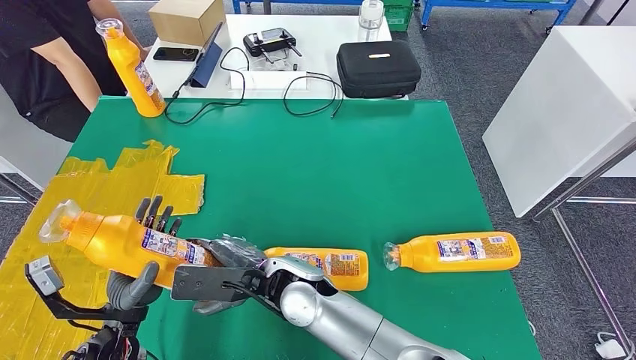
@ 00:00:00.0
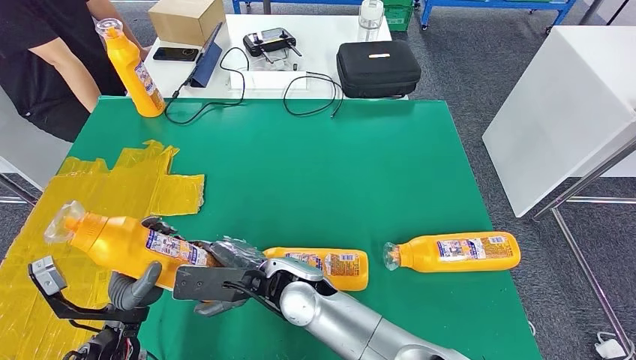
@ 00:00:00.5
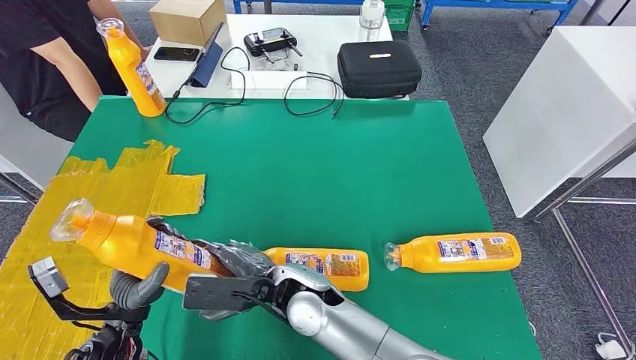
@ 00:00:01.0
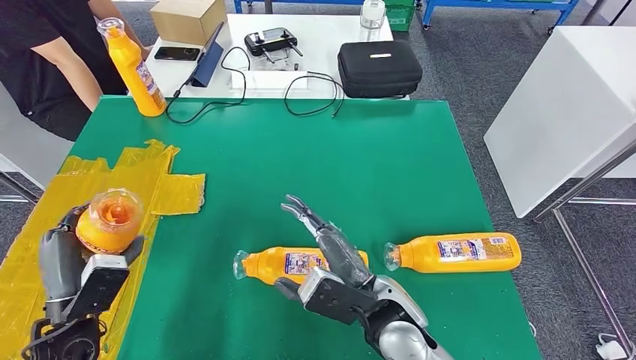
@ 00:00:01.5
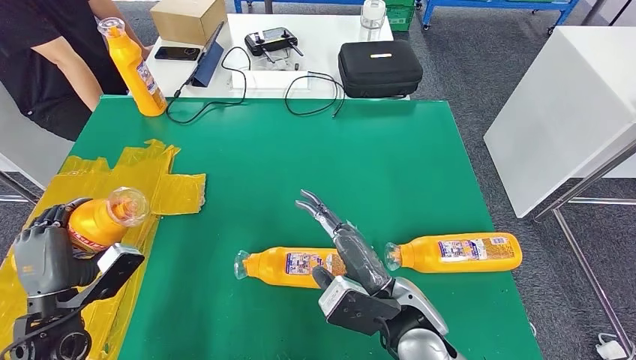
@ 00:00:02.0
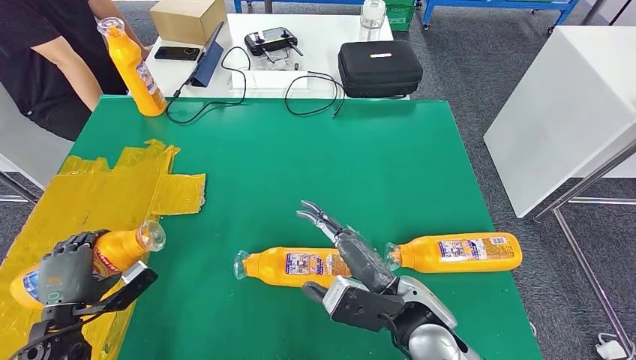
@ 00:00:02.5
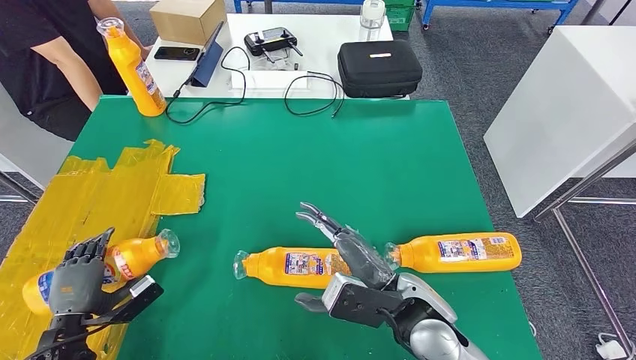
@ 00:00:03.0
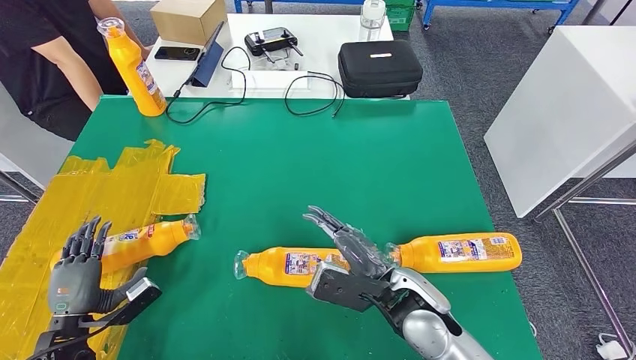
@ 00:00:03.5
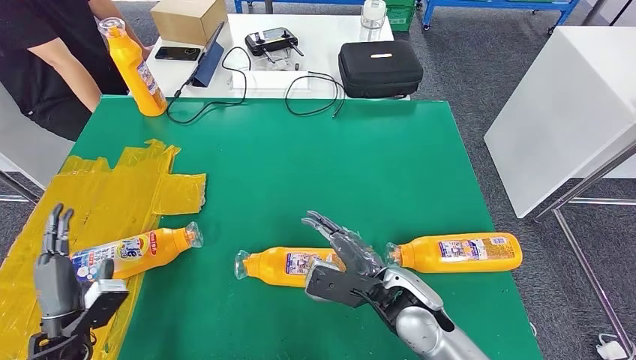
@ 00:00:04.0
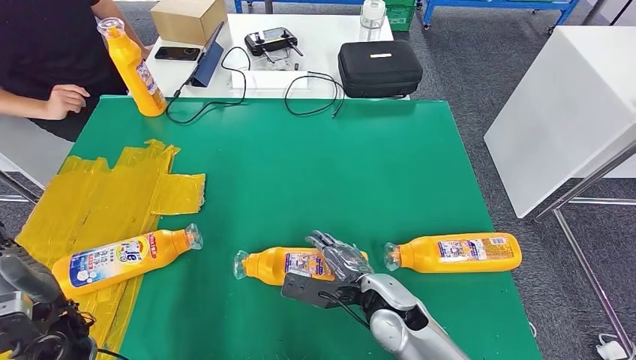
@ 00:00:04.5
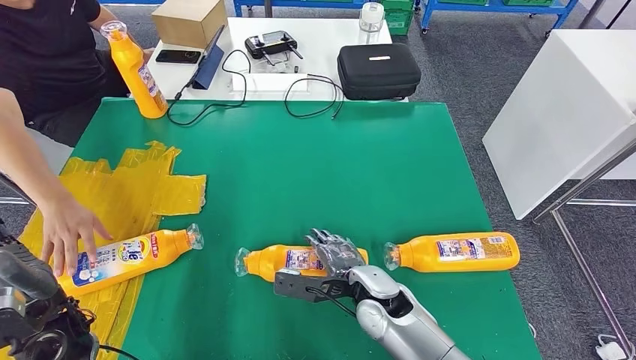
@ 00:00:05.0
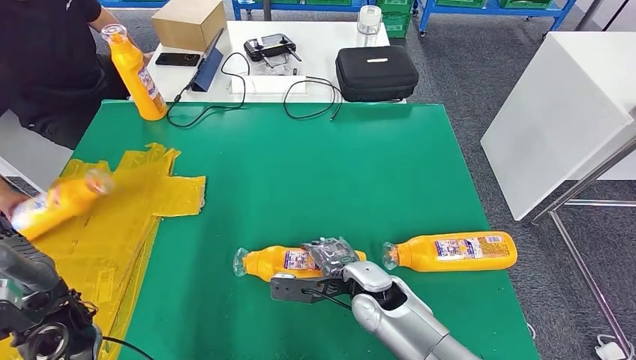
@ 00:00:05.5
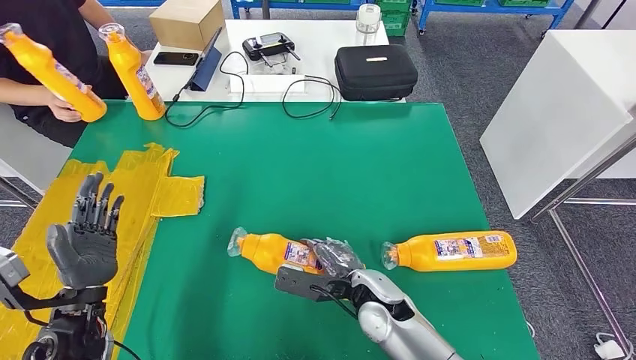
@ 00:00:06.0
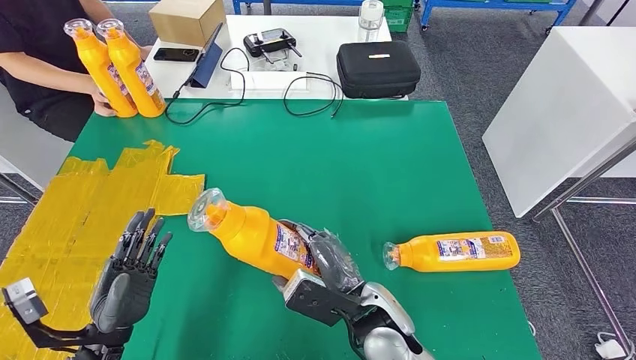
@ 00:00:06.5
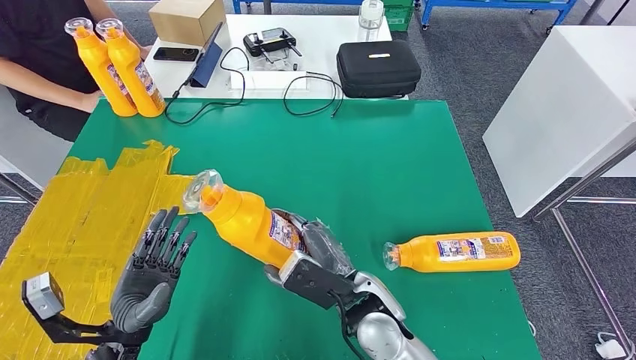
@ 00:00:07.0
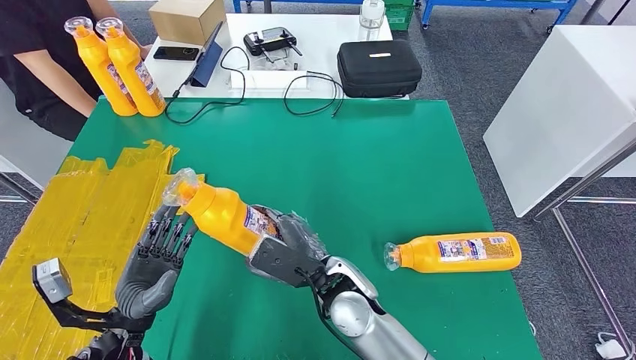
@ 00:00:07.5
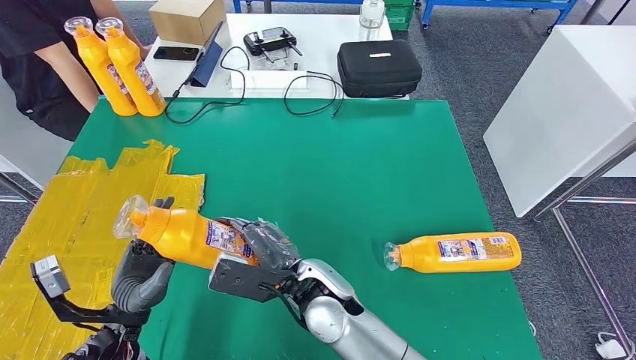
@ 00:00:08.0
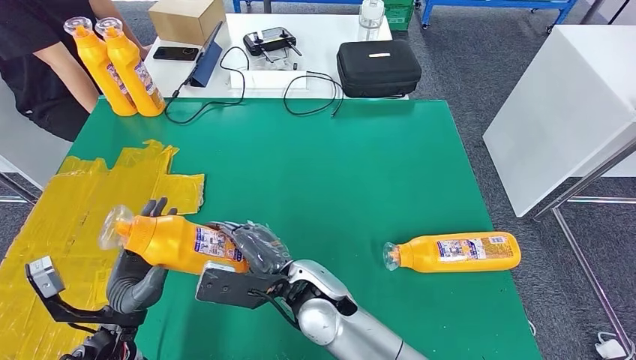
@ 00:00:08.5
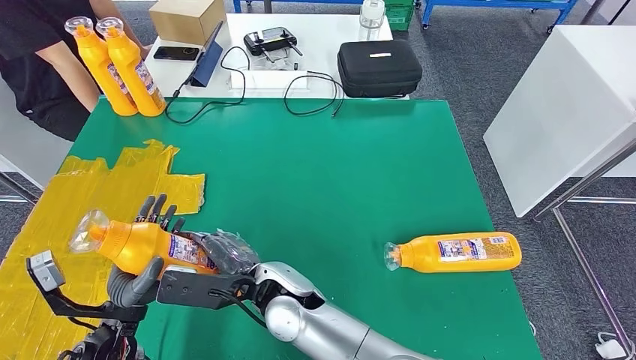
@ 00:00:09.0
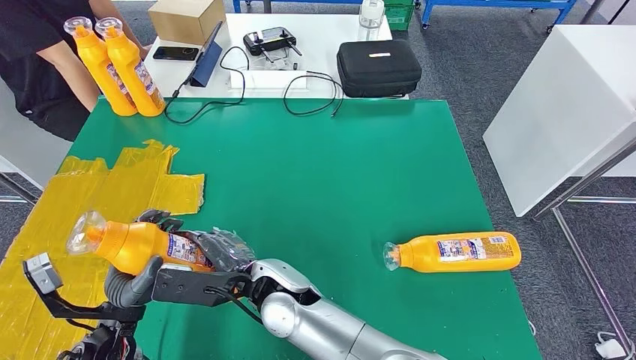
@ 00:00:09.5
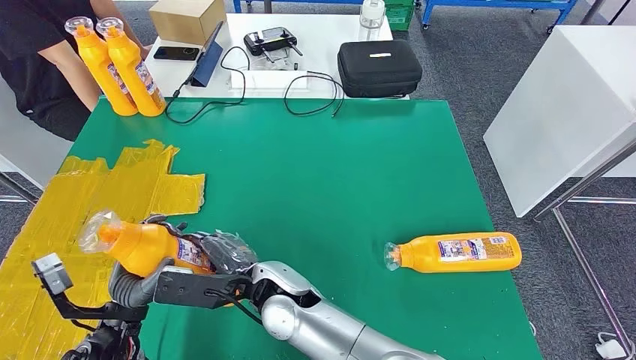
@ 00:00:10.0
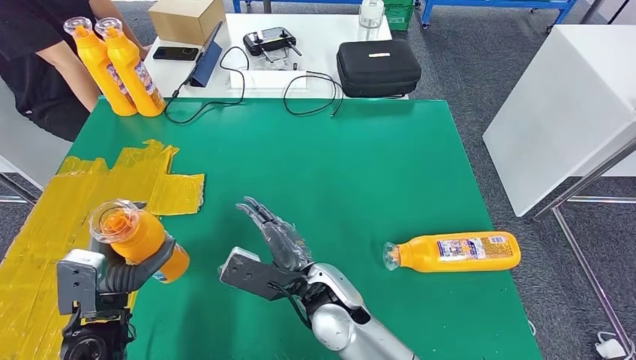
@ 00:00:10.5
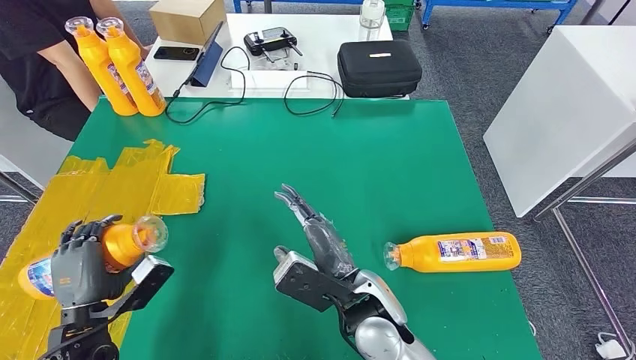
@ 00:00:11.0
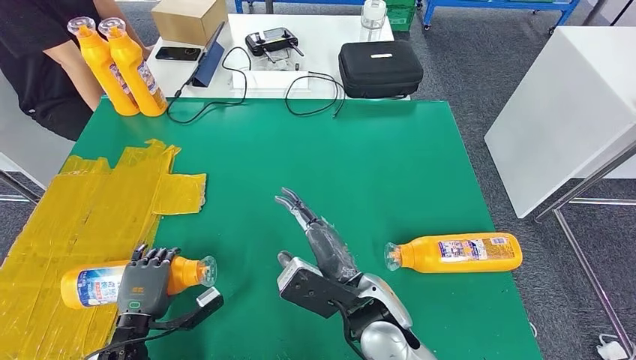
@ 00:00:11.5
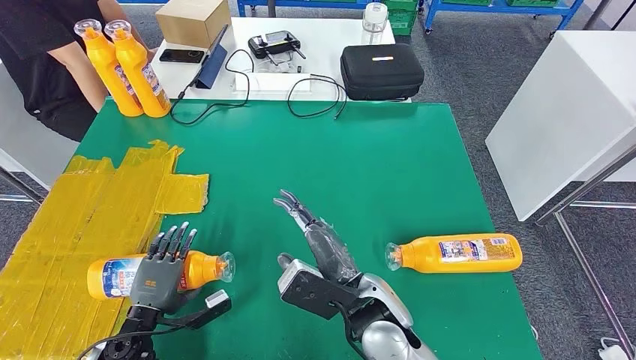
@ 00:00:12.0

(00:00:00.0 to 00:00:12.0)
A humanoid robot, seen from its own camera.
Step, 00:00:00.0 - 00:00:02.5: Flip the fast-moving consumer goods bottle to the front side.
Step, 00:00:03.0 - 00:00:08.0: Pick up the fast-moving consumer goods bottle from the table.
00:00:02.0 - 00:00:04.0: The right hand ends up some 5 cm from where it was. The left hand heads downward, covering some 5 cm.
00:00:08.0 - 00:00:10.0: The right hand heads to the left, covering roughly 5 cm.

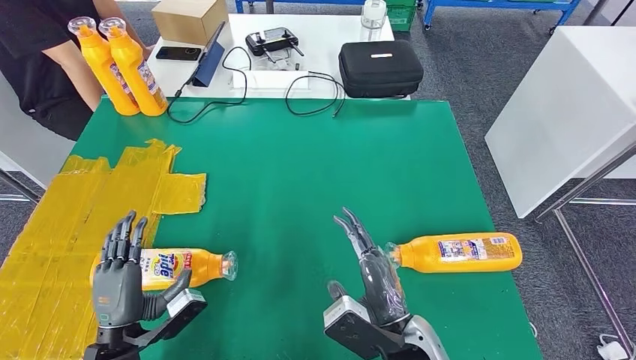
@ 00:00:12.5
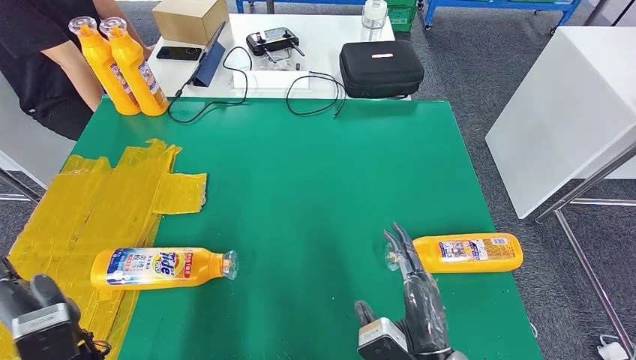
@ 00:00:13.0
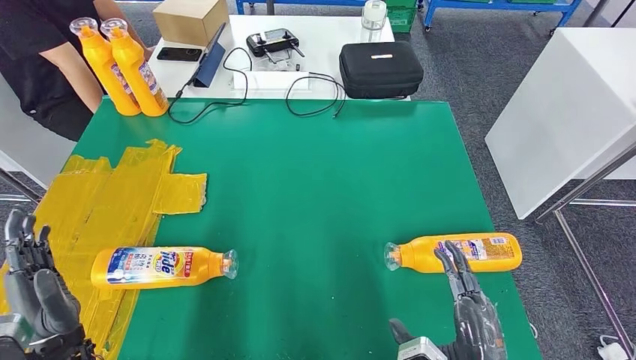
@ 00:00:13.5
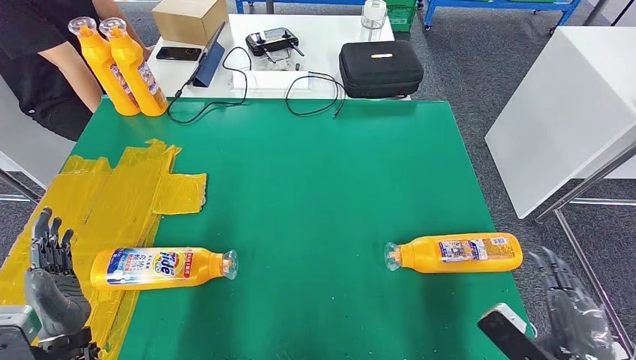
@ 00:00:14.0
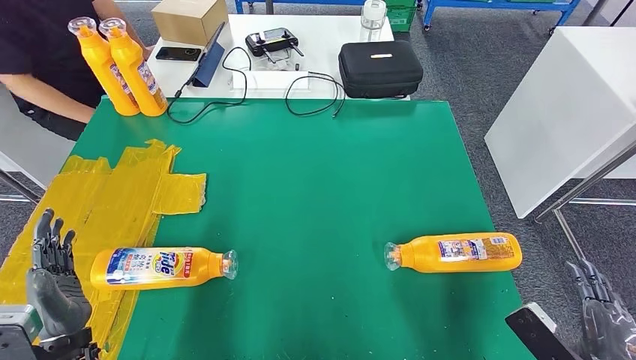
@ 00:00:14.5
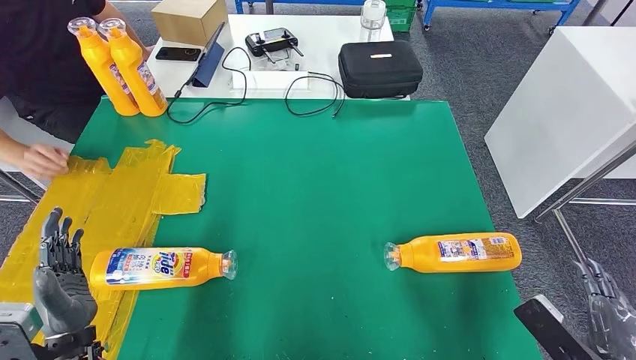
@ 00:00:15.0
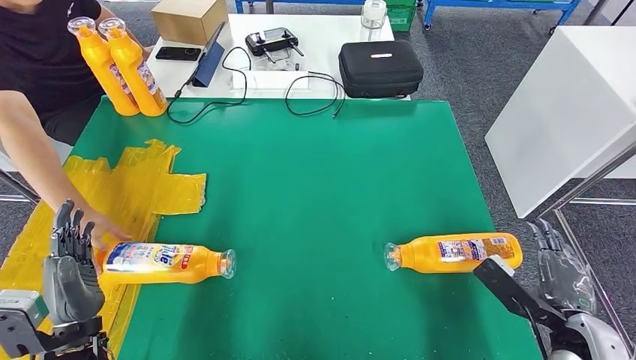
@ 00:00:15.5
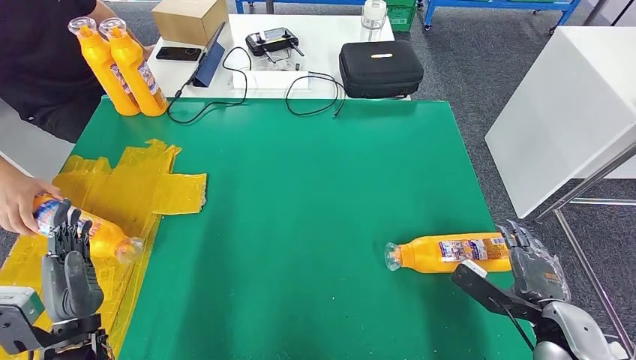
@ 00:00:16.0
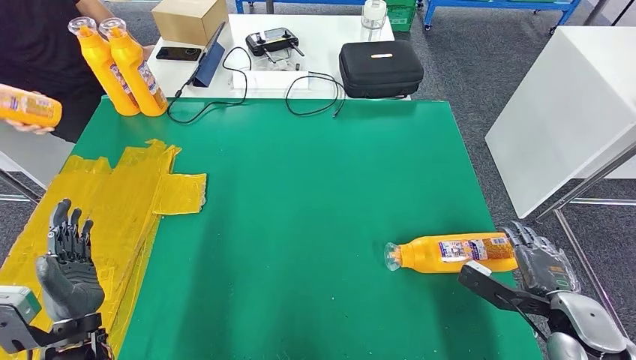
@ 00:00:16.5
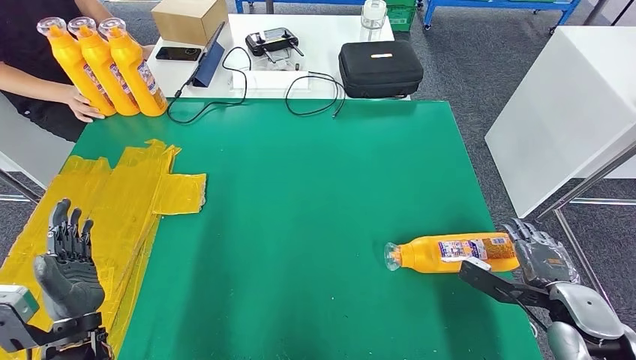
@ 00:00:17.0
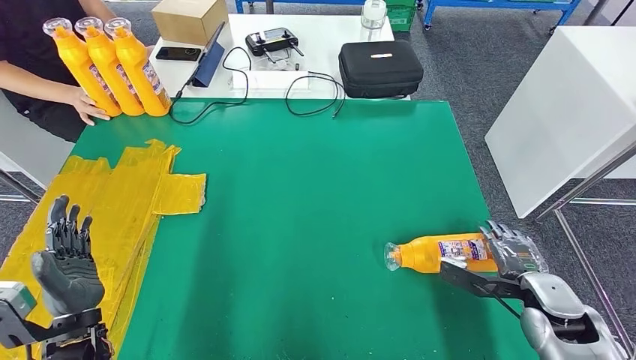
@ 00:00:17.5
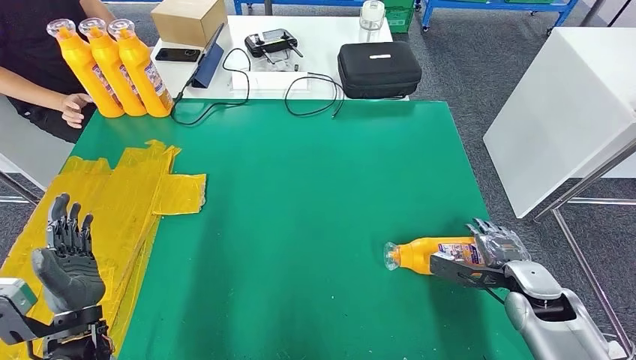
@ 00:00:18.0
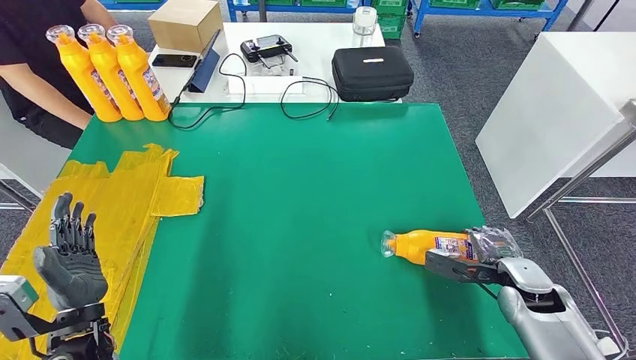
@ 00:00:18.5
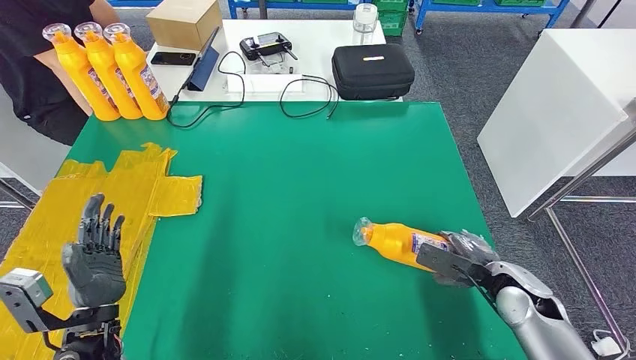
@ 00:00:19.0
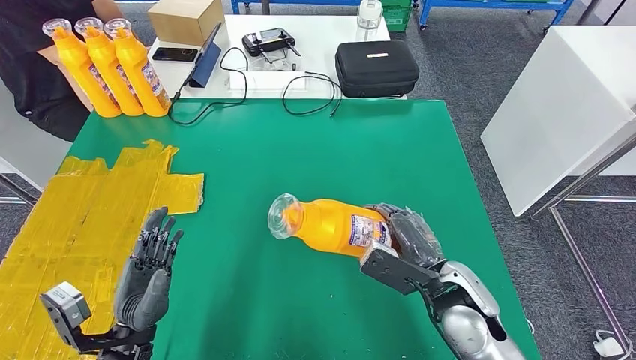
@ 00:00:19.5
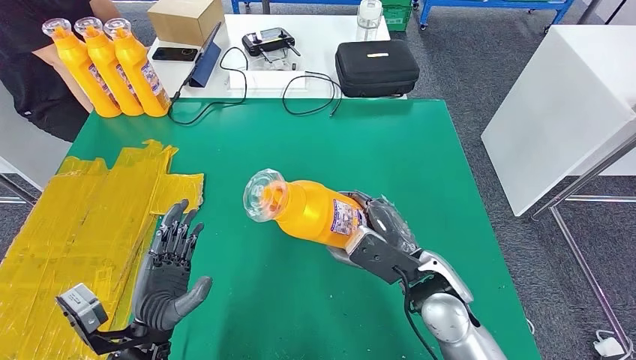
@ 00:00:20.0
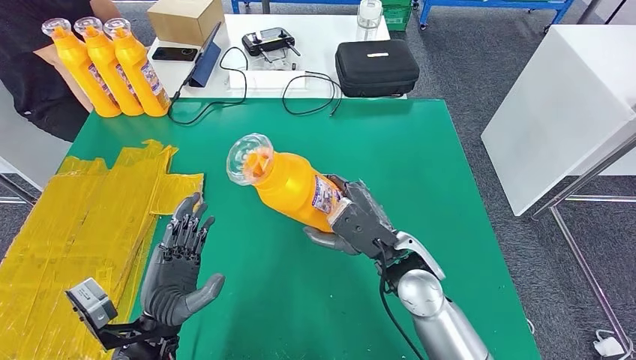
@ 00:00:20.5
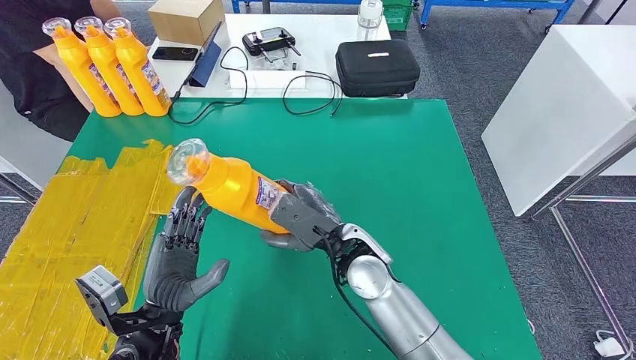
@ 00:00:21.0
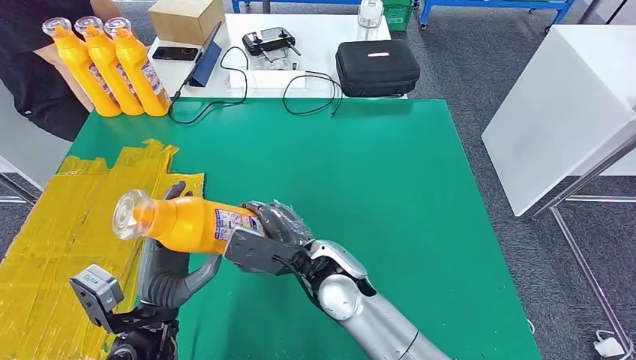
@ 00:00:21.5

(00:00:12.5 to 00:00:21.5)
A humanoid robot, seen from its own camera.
Step, 00:00:12.5 - 00:00:20.5: Pick up the fast-moving consumer goods bottle from the table.
00:00:12.5 - 00:00:14.5: The left hand is displaced upward by roughly 5 cm. Meanwhile the right hand goes approximately 25 cm to the right.
00:00:14.5 - 00:00:17.0: The right hand is displaced forward by approximately 15 cm.
00:00:19.5 - 00:00:21.5: The right hand shifts about 20 cm to the left, while the left hand ends up some 5 cm from where it was.
